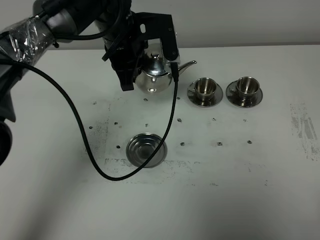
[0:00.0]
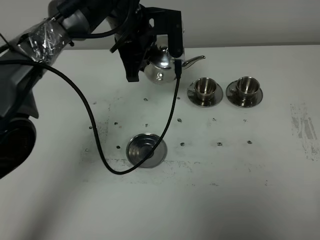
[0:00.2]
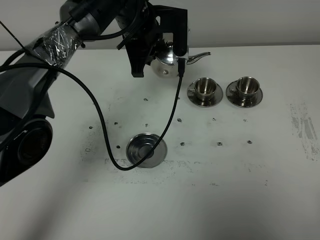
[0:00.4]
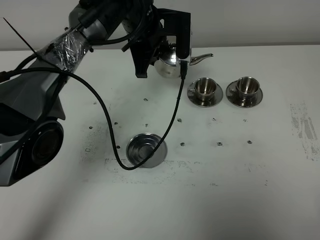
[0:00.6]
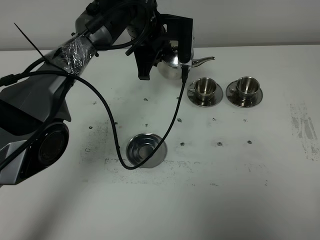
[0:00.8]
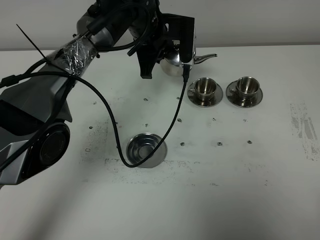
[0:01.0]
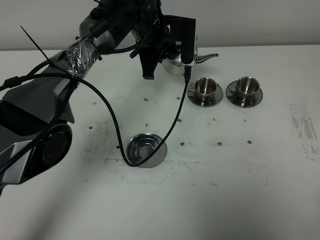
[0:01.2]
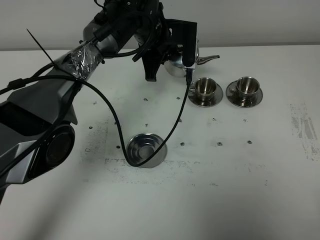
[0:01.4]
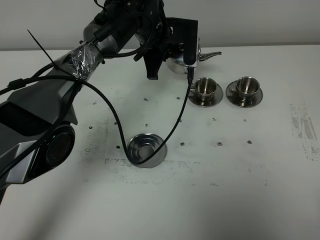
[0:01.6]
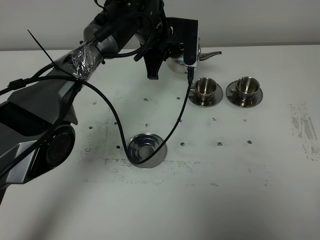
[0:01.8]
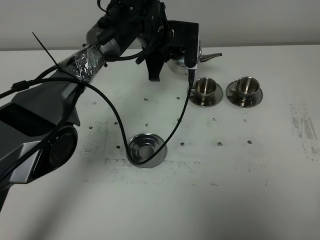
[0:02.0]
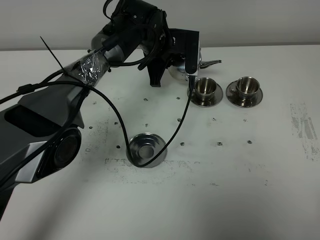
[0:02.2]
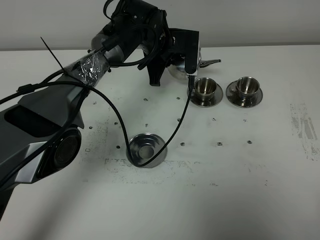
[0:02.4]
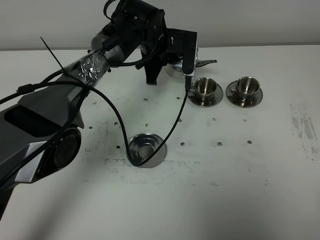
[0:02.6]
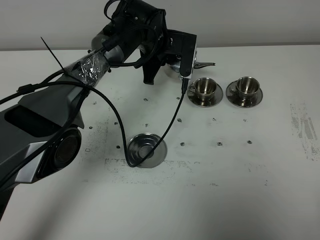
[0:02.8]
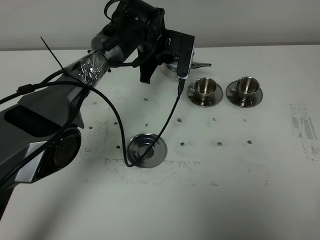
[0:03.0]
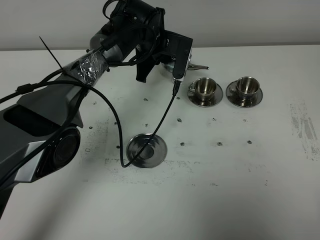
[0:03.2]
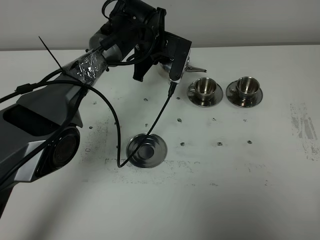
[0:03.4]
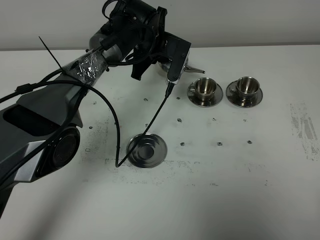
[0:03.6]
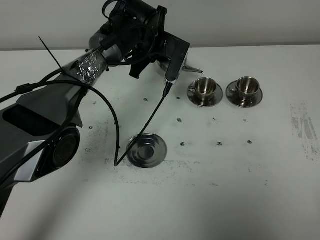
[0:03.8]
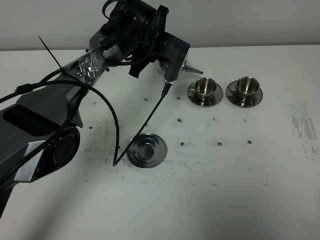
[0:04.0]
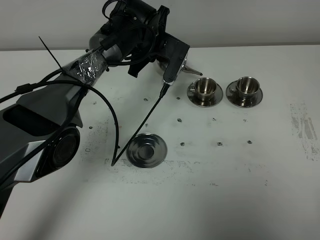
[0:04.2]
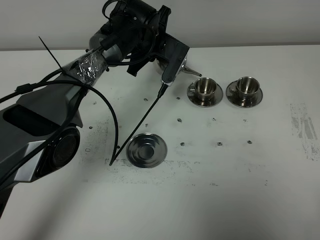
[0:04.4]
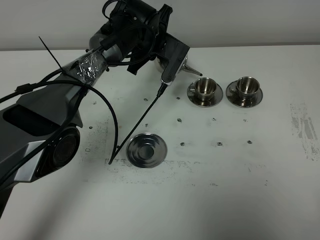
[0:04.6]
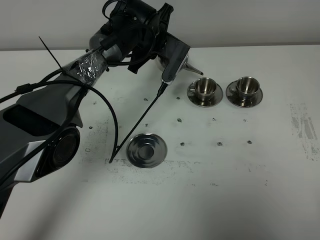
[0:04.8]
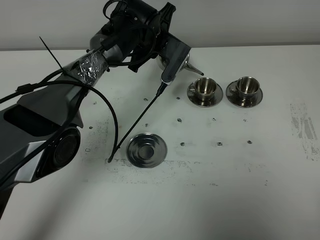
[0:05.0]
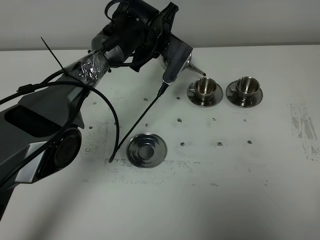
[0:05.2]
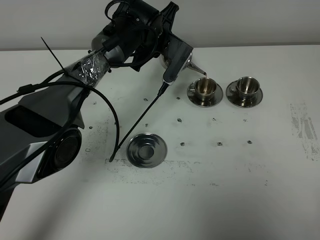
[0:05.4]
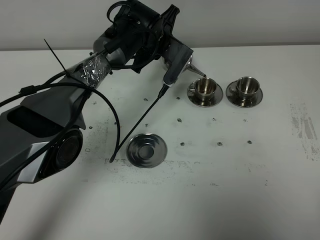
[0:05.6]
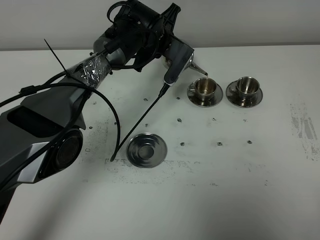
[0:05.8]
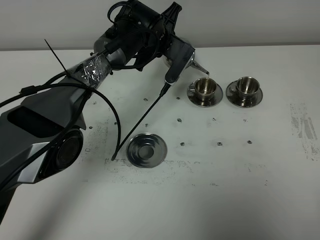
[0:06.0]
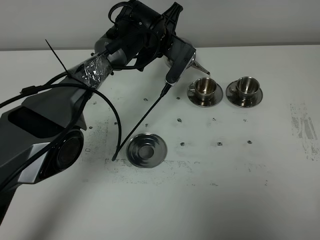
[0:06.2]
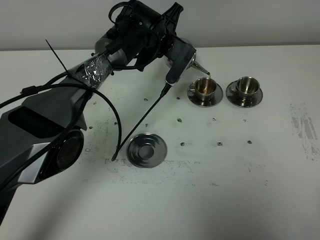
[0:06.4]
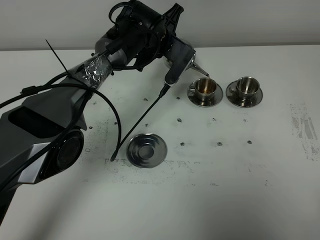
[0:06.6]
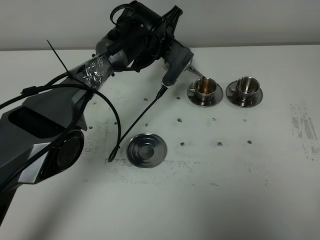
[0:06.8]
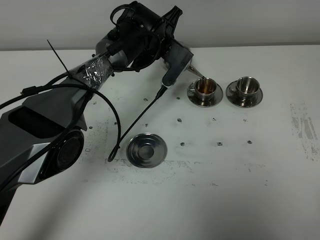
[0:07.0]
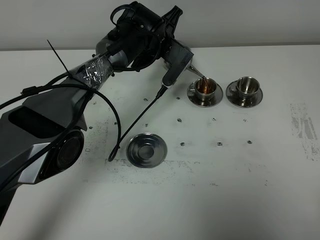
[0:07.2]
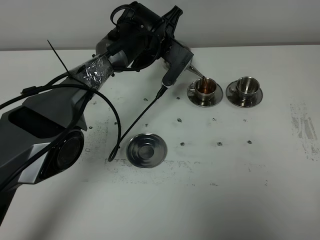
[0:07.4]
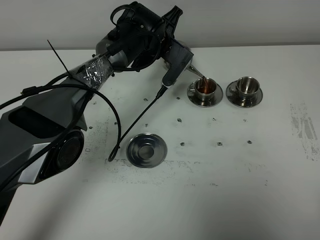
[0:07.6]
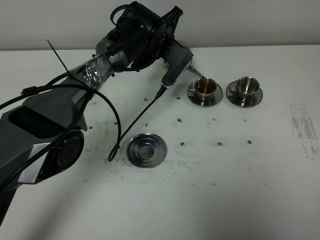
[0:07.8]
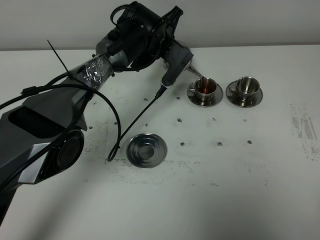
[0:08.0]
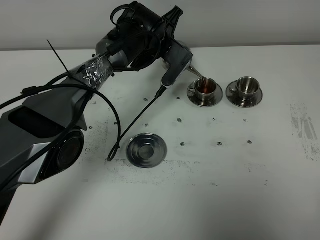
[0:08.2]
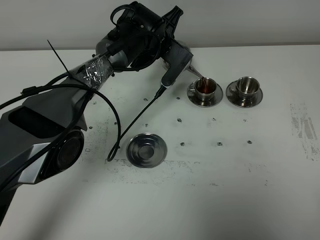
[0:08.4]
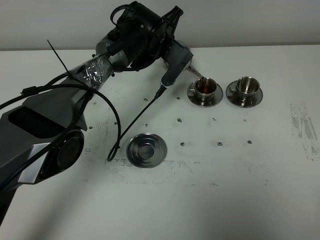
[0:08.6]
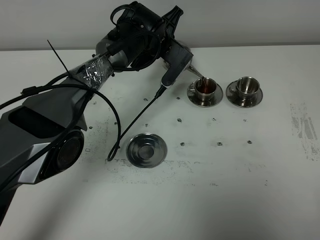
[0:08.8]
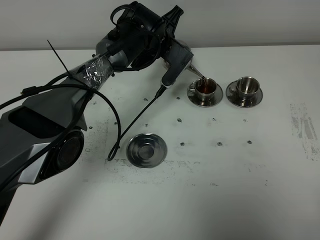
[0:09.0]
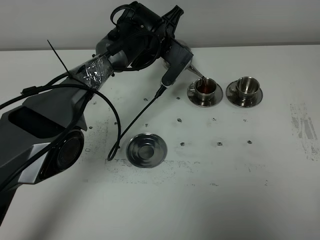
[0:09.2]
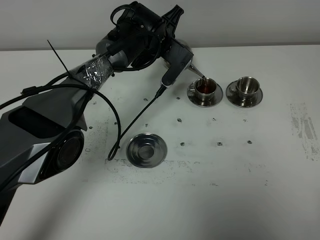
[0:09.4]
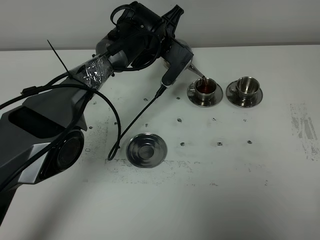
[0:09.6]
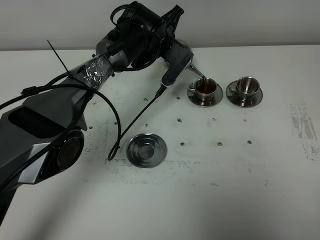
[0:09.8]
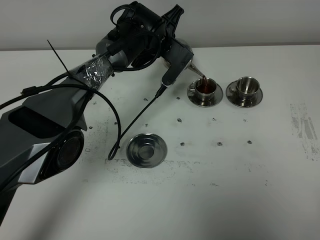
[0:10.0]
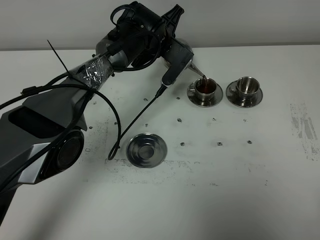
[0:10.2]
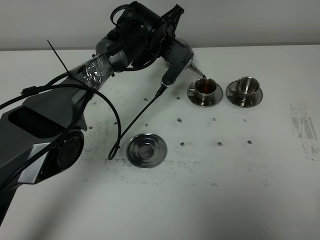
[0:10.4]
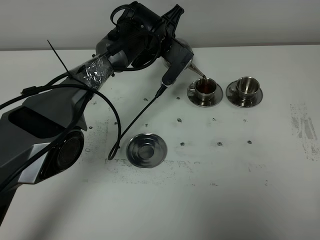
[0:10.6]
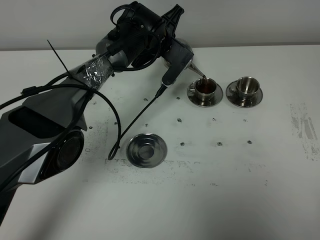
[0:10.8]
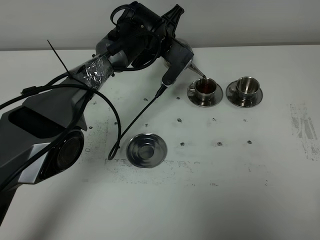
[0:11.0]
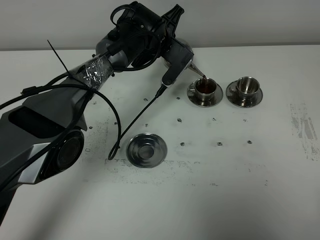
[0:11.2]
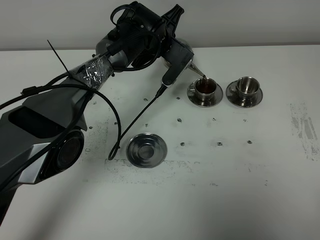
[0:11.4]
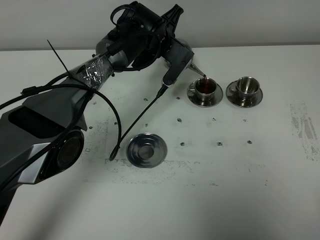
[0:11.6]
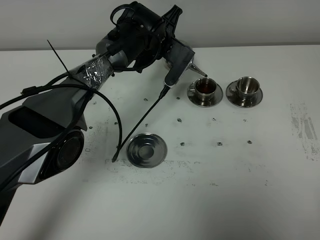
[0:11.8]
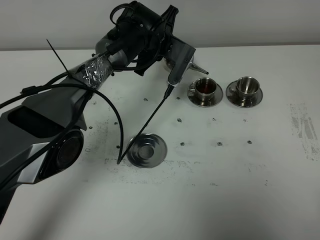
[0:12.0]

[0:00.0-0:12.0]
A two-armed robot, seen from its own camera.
Task of the whole recording: grasp the stainless steel teapot and pour the tea into the two stainless steel teacups one by one, put the stainless steel teapot back in its original place.
0:00.0 to 0:01.6: The left gripper travels forward and downward by roughly 10 cm.
0:01.6 to 0:03.0: The grippers make only small movements.
0:03.0 to 0:04.4: The grippers make only small movements.
0:04.4 to 0:06.0: The grippers make only small movements.
0:06.0 to 0:07.6: The two grippers keep their place.
0:07.6 to 0:10.4: Neither gripper changes place.
0:10.4 to 0:12.0: There are only small adjustments of the grippers.

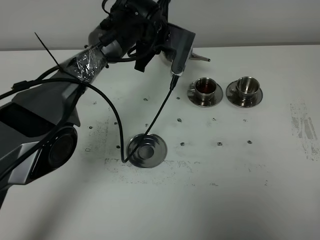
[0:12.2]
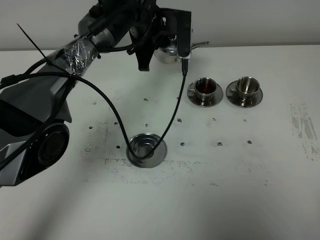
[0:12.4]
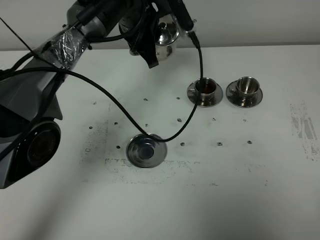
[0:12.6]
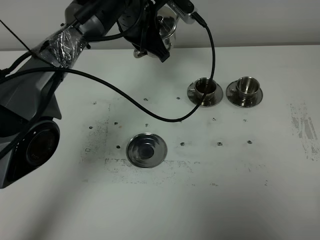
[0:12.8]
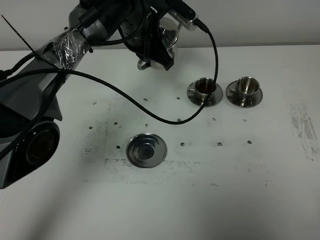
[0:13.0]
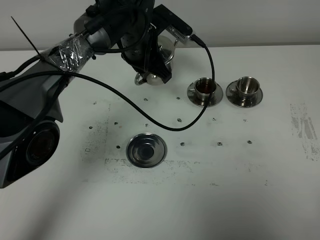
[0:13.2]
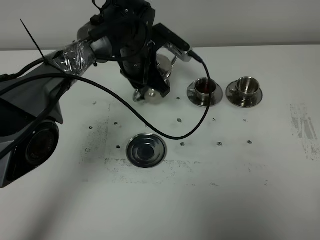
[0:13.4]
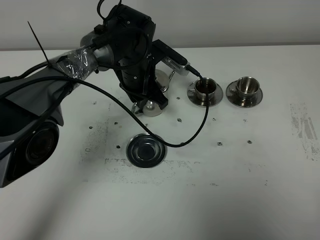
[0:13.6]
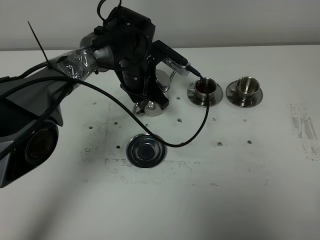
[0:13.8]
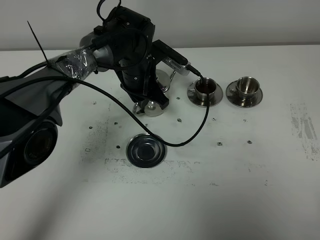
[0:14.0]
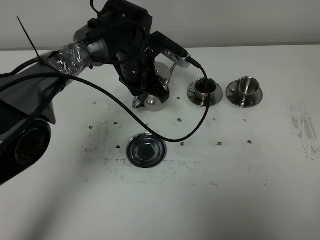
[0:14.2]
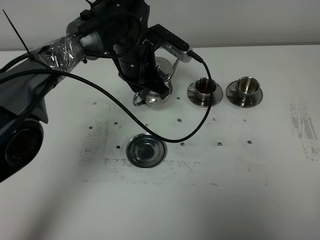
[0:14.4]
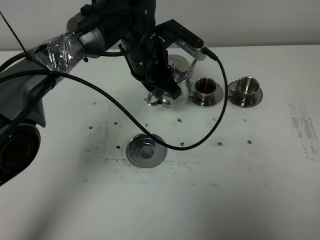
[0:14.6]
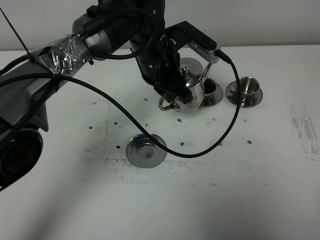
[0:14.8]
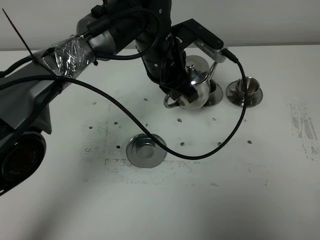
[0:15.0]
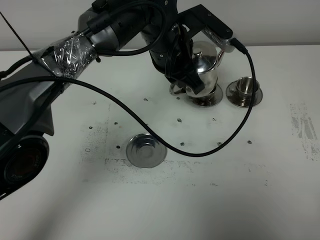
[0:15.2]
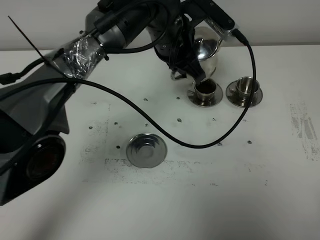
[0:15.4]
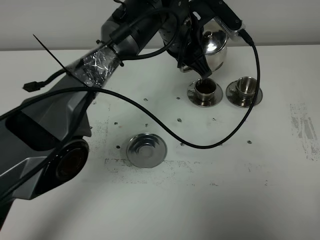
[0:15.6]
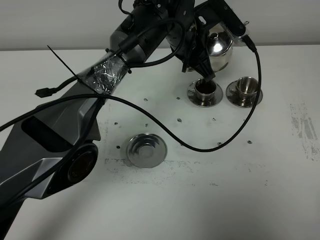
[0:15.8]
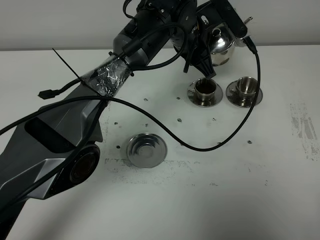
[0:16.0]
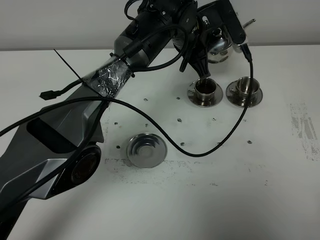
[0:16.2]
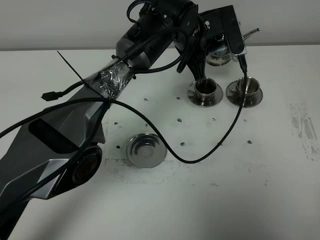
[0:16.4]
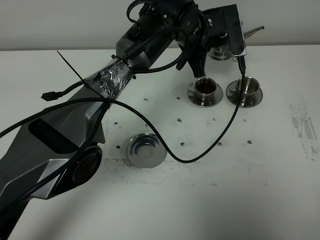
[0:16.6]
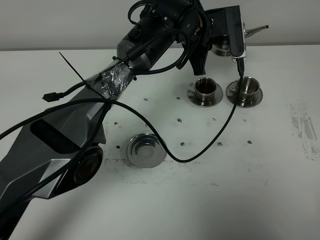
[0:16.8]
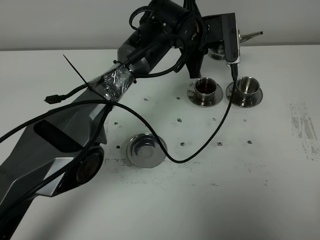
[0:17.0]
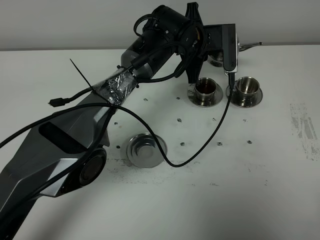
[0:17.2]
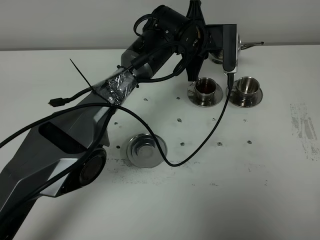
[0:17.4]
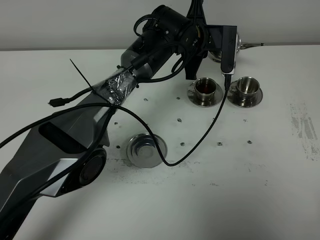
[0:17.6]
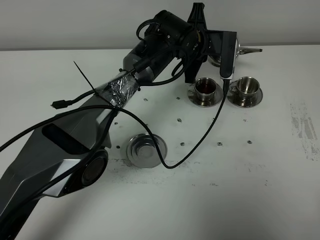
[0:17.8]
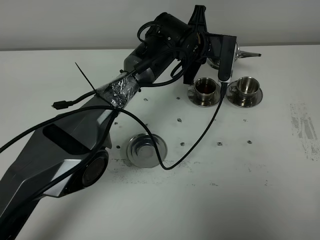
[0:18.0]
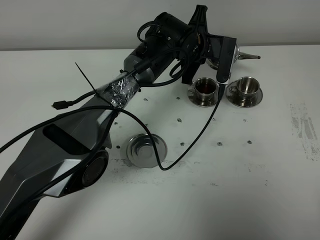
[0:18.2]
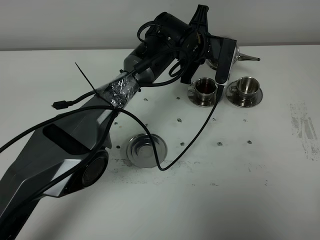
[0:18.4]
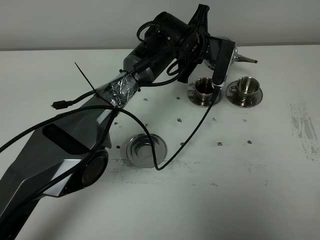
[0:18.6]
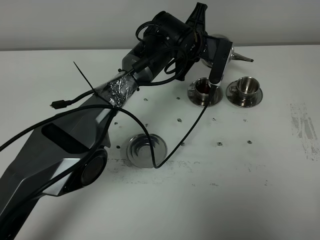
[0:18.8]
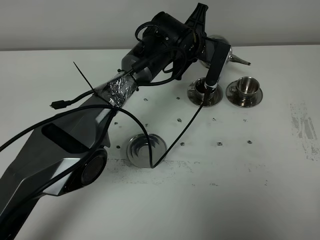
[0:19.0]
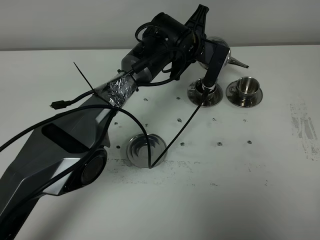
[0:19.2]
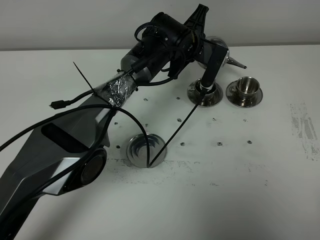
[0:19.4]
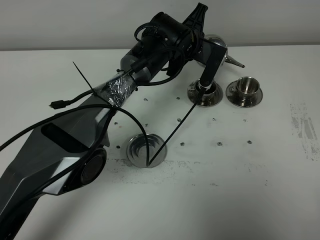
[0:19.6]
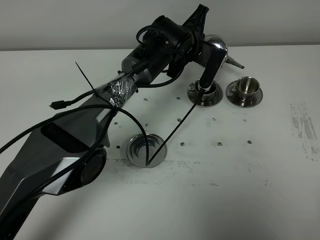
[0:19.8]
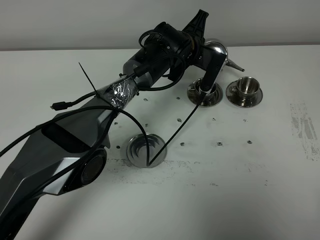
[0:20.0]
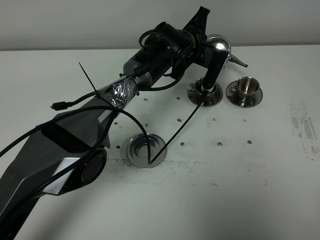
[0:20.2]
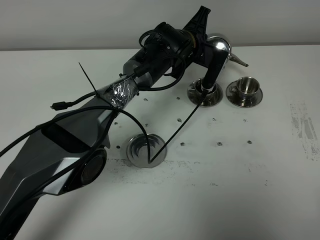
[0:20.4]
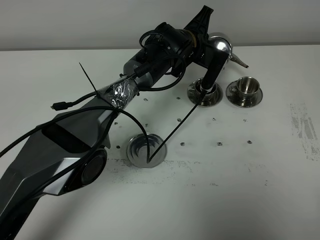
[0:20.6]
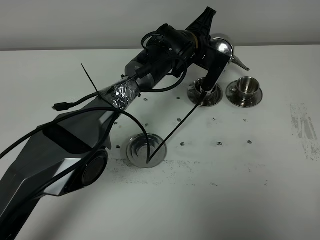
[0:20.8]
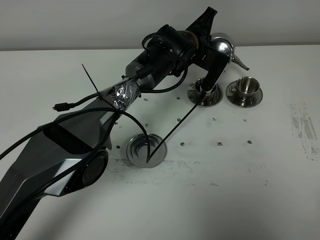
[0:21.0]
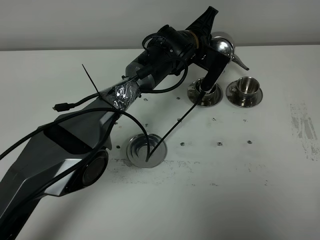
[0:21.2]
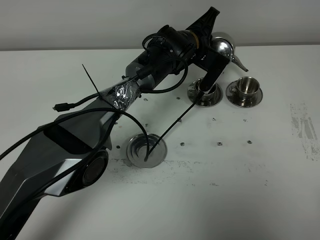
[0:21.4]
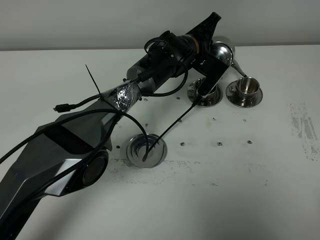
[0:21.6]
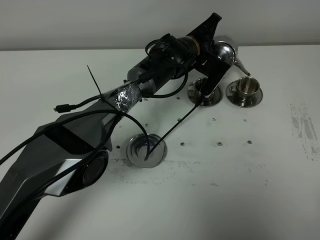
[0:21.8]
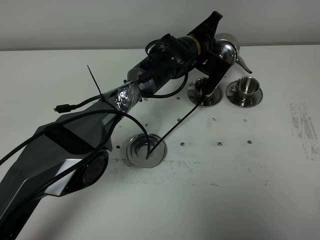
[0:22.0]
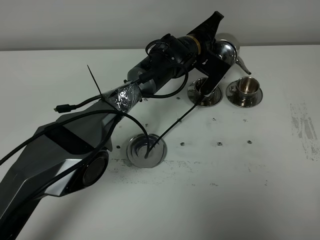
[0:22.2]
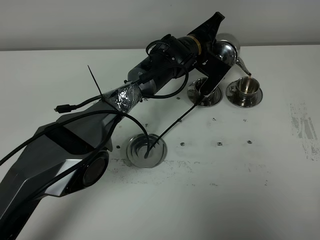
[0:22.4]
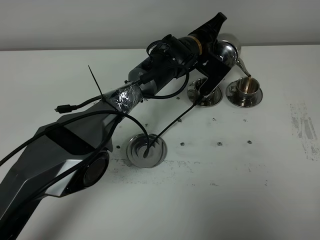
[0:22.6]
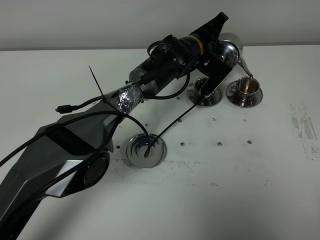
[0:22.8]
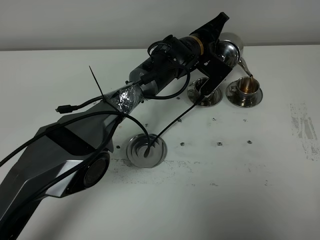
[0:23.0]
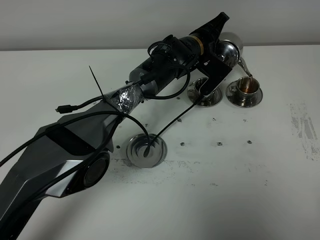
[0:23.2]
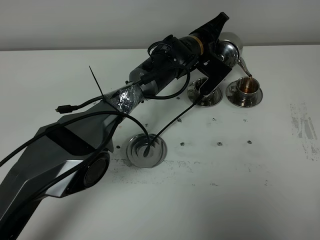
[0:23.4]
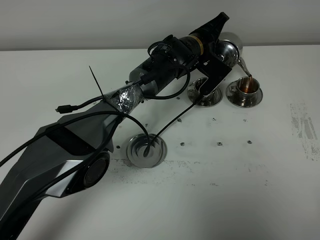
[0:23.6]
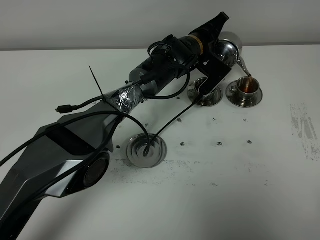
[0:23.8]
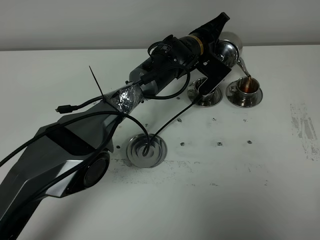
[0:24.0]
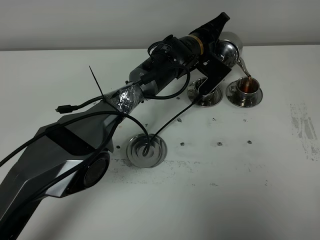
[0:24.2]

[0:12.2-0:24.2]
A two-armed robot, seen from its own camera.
Task of the whole recording: grasp the stainless steel teapot and pour the tea into the two stainless steel teacups one by one, put the stainless steel teapot back in its original place.
0:12.2 to 0:13.8: The left gripper goes about 10 cm downward and backward.
0:13.8 to 0:15.2: The left gripper shifts some 10 cm upward and to the right.
0:15.2 to 0:16.6: The left gripper goes roughly 5 cm forward.
0:16.6 to 0:18.2: The left gripper shifts some 5 cm downward.
0:18.2 to 0:19.8: There are only small adjustments of the grippers.
0:19.8 to 0:22.6: The grippers make only small movements.
0:22.6 to 0:24.2: The two grippers keep their place.
